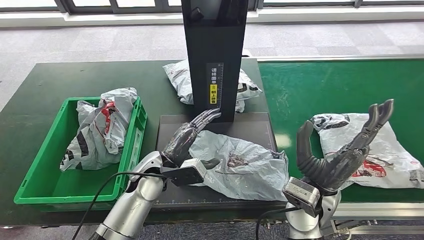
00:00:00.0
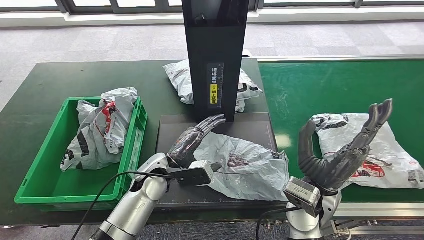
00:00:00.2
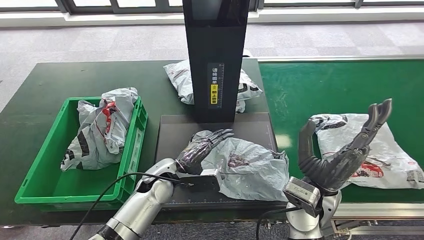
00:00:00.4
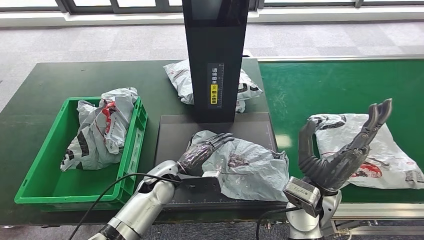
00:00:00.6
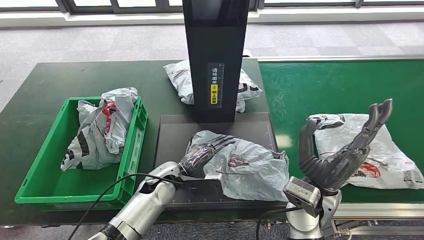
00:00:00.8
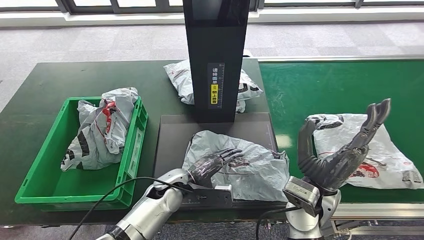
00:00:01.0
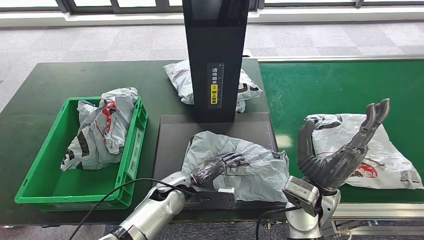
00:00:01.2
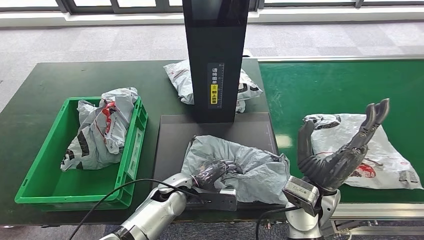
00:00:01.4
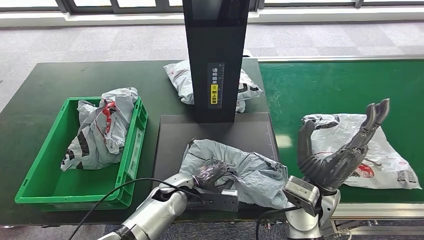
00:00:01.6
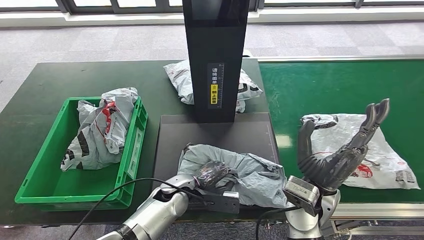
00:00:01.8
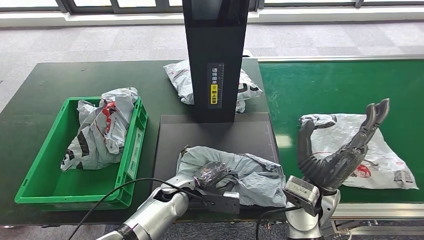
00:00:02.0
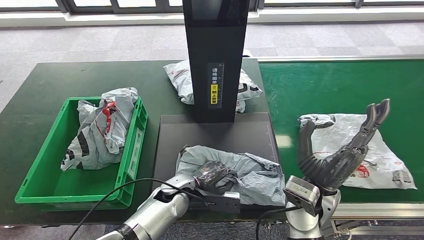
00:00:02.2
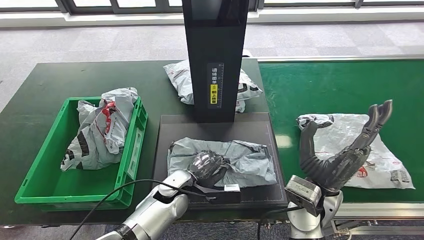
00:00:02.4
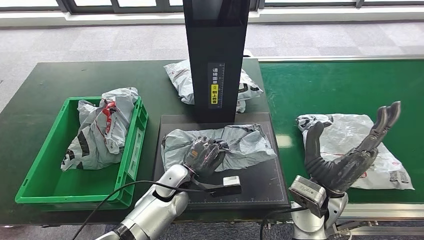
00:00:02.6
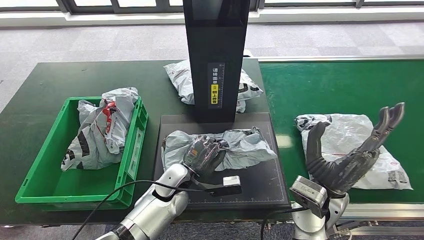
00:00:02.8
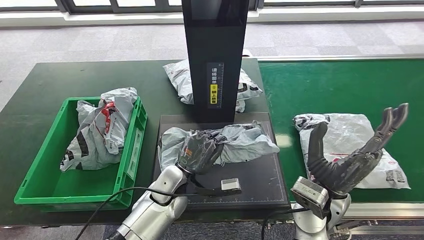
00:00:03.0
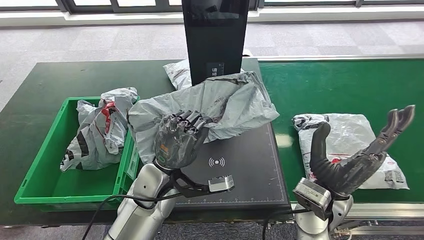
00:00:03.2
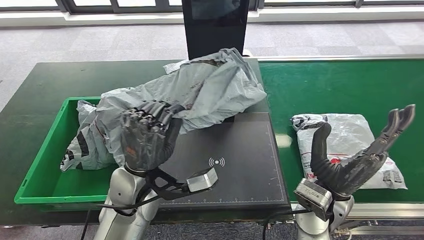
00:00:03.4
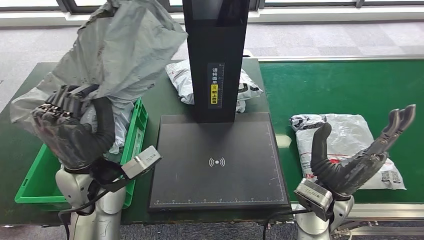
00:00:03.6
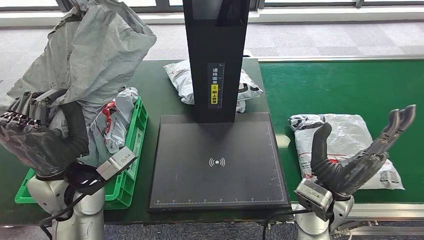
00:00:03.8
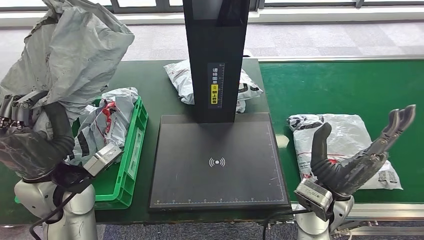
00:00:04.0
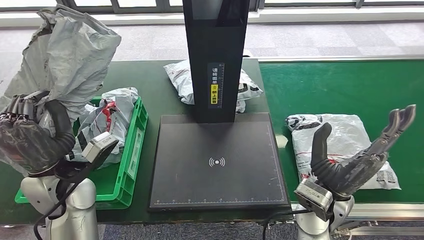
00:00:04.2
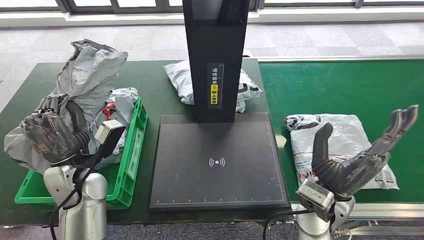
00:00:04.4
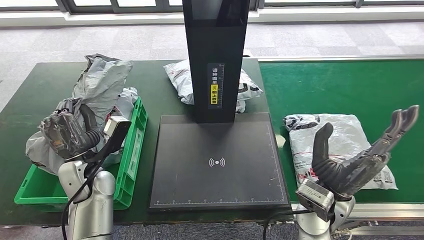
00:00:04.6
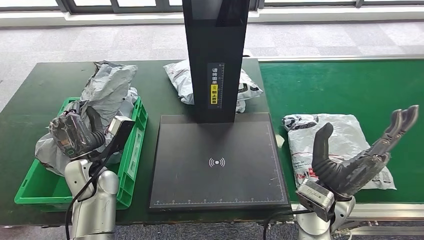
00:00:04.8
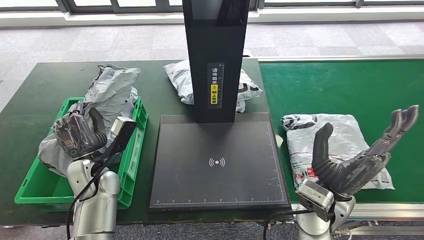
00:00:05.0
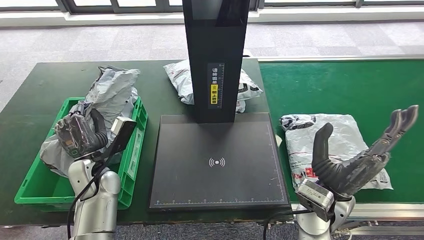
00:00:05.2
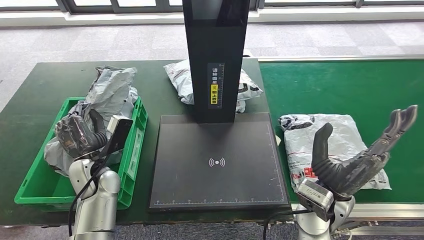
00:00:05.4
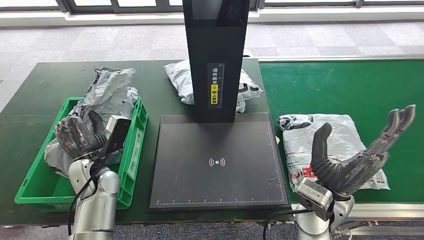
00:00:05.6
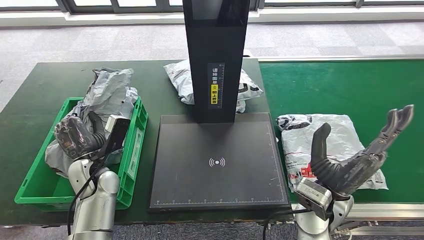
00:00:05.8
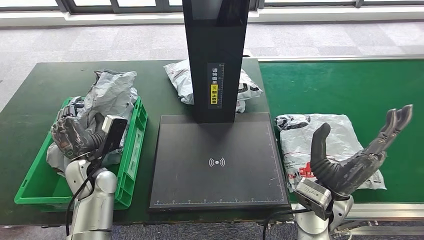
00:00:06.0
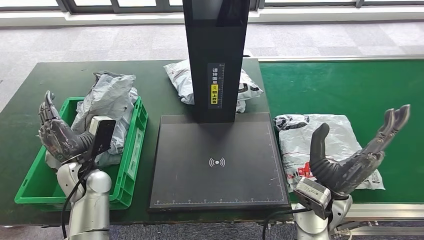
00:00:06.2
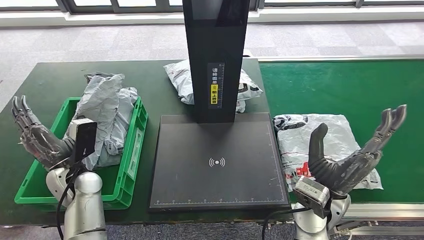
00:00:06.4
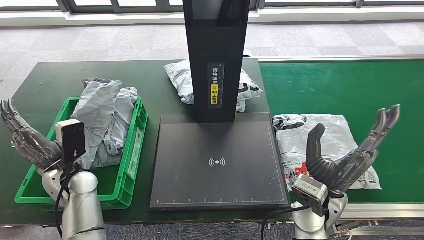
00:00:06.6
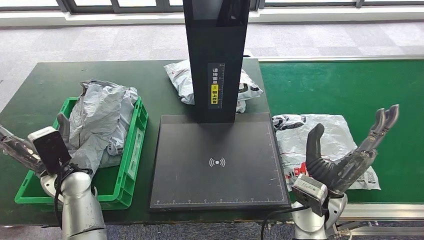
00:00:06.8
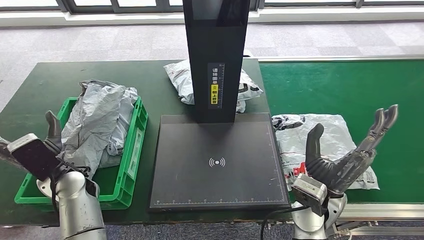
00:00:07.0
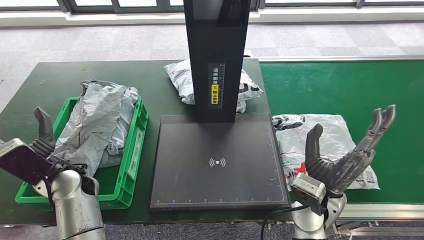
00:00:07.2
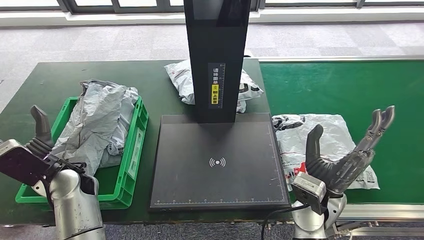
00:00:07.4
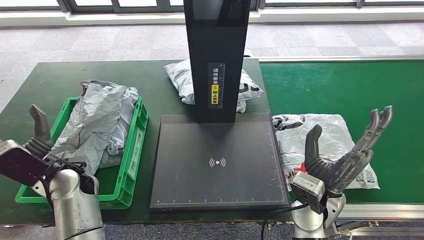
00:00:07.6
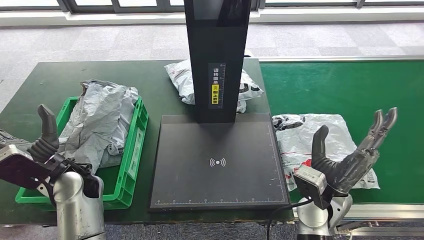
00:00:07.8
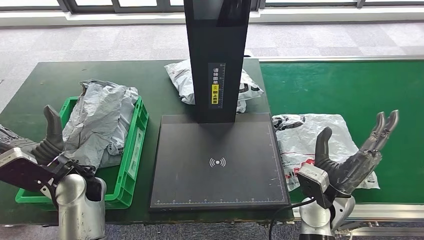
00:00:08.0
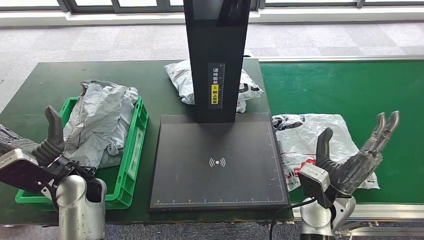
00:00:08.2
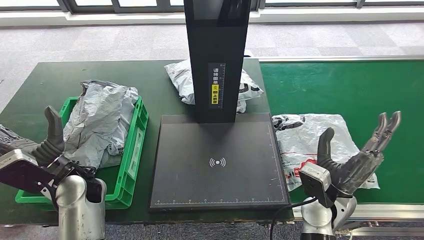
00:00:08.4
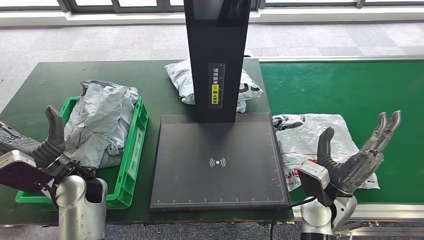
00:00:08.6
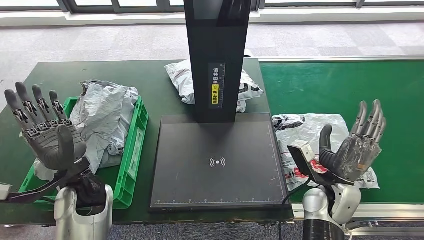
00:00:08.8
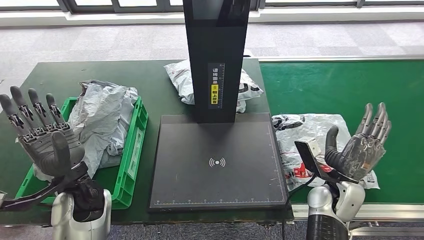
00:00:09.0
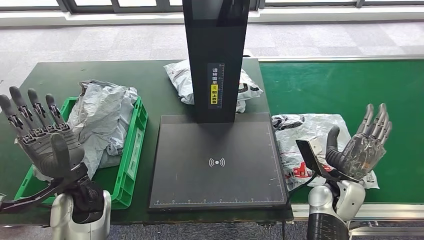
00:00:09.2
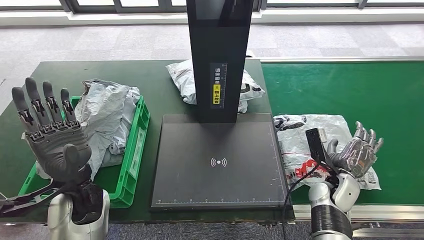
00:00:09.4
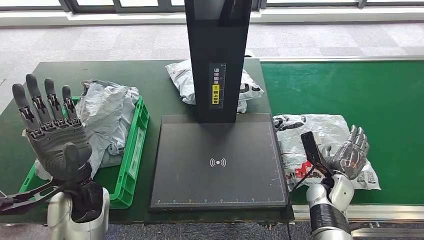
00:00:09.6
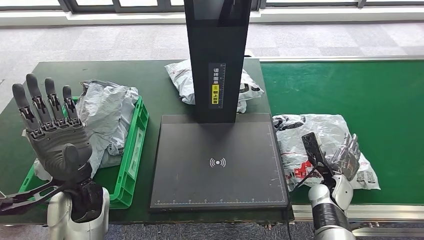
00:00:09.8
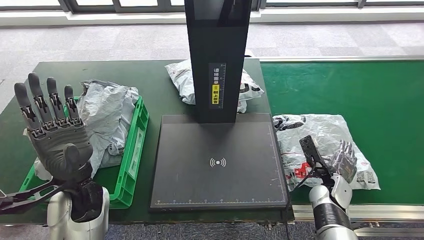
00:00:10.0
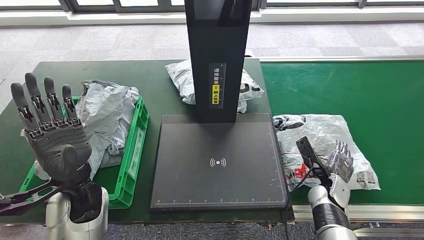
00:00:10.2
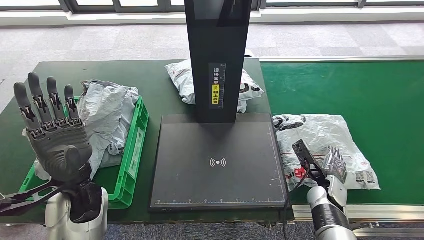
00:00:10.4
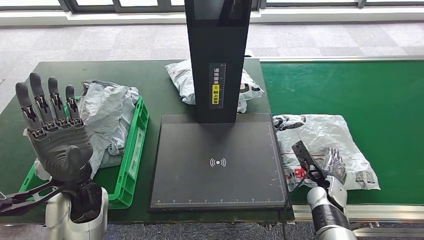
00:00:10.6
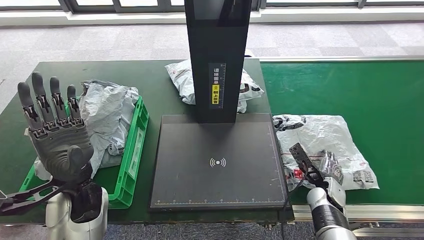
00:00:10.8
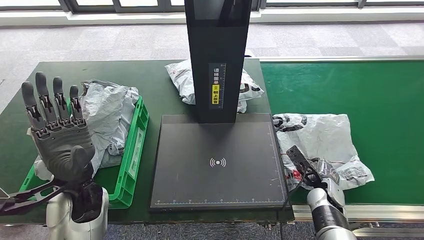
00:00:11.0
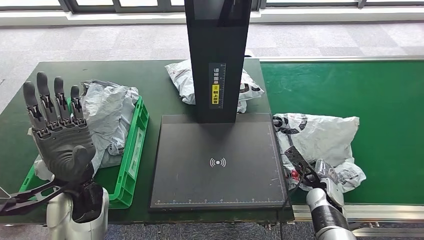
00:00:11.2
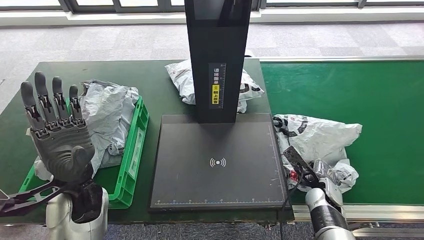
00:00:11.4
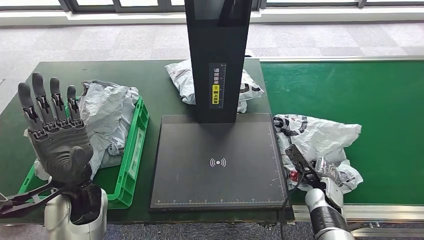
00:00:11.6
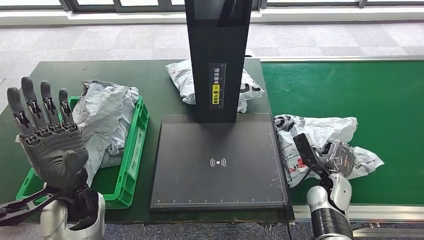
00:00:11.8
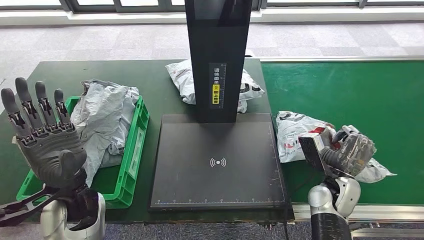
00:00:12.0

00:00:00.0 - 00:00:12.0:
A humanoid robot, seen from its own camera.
Step, 00:00:00.0 - 00:00:03.0: Pick up the parcel from the inbound machine.
Step, 00:00:03.2 - 00:00:07.8: Place the parcel into the delivery box.
00:00:00.0 - 00:00:01.6: The left hand travels downward by about 10 cm.
00:00:04.4 - 00:00:06.0: The left hand heads downward, covering roughly 5 cm.
00:00:06.0 - 00:00:07.6: The left hand changes place by some 5 cm.
00:00:07.6 - 00:00:09.0: The right hand goes roughly 5 cm to the right. Meanwhile the left hand ends up about 5 cm from where it was.
00:00:09.0 - 00:00:10.4: The right hand shifts about 10 cm downward.
00:00:10.4 - 00:00:12.0: The right hand goes roughly 5 cm upward.

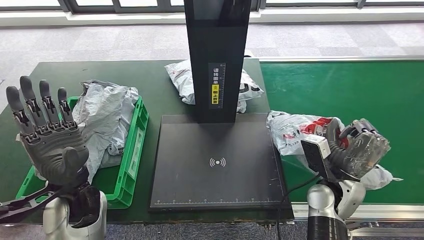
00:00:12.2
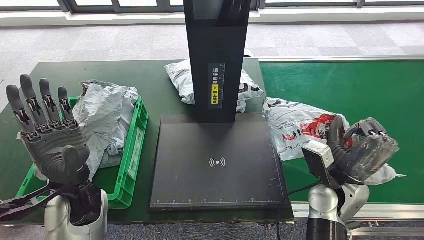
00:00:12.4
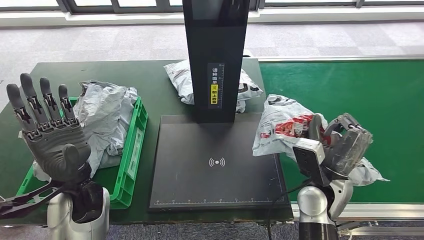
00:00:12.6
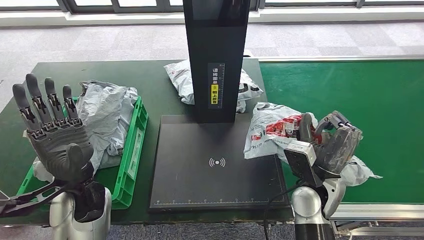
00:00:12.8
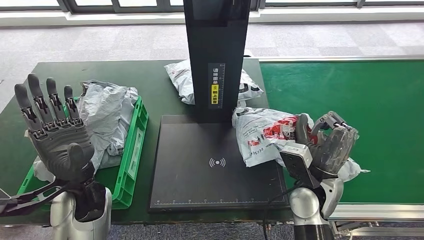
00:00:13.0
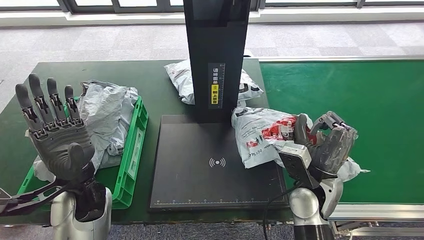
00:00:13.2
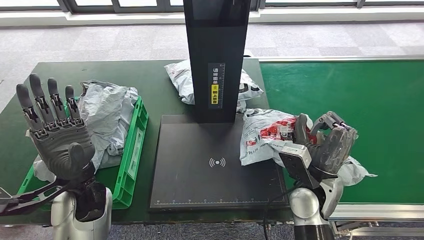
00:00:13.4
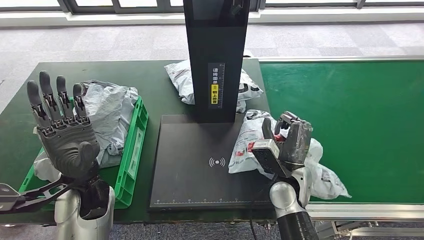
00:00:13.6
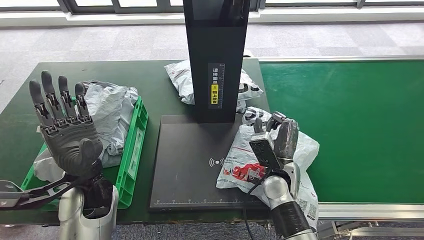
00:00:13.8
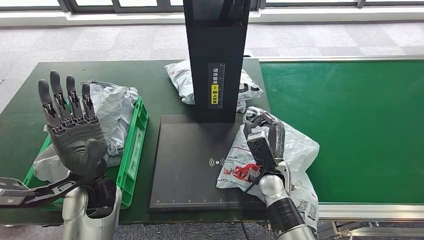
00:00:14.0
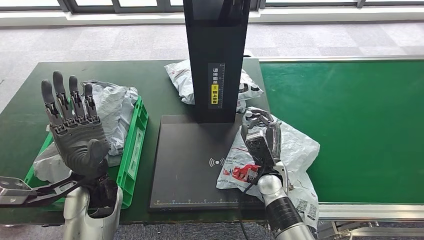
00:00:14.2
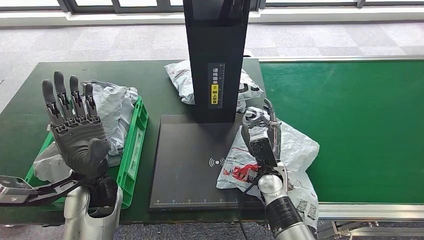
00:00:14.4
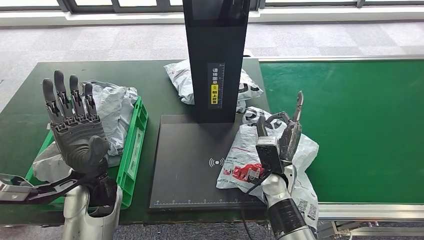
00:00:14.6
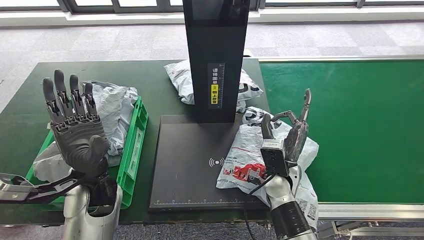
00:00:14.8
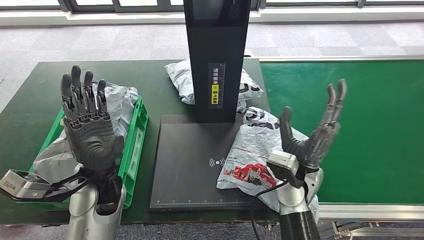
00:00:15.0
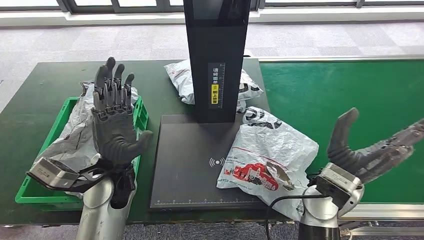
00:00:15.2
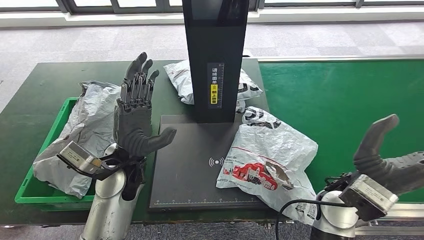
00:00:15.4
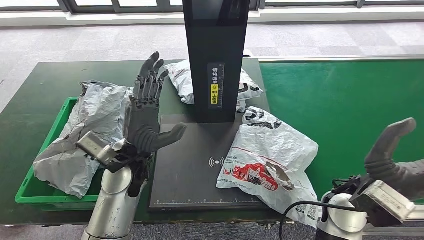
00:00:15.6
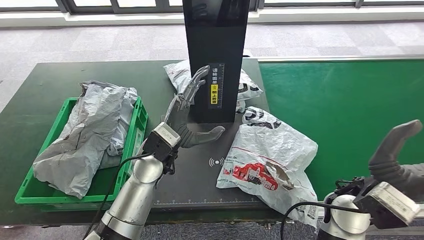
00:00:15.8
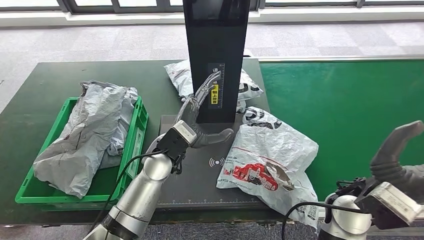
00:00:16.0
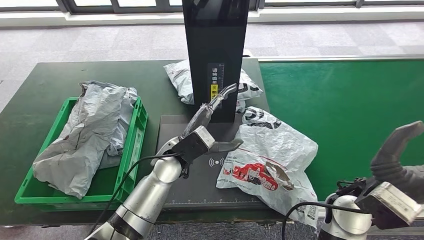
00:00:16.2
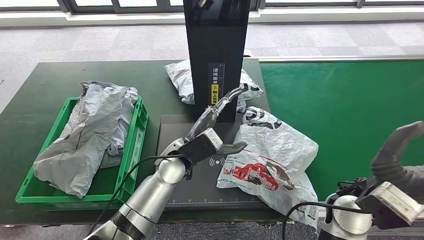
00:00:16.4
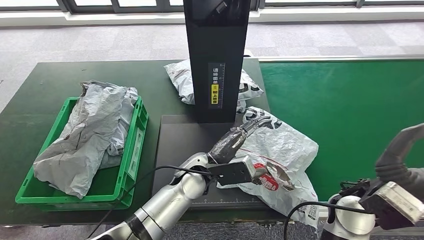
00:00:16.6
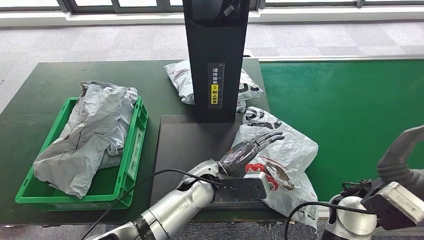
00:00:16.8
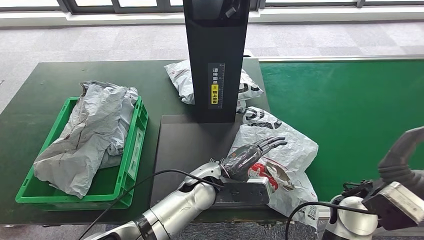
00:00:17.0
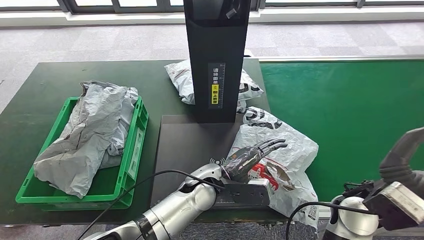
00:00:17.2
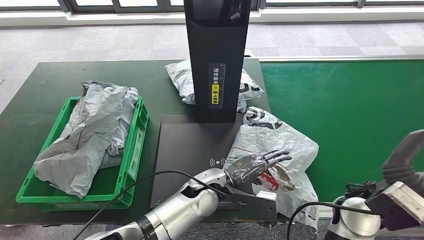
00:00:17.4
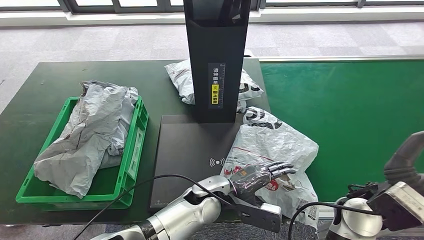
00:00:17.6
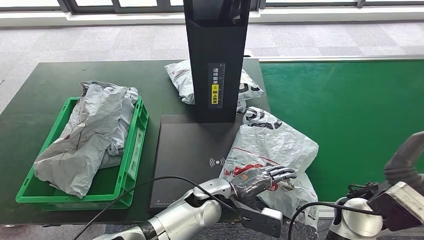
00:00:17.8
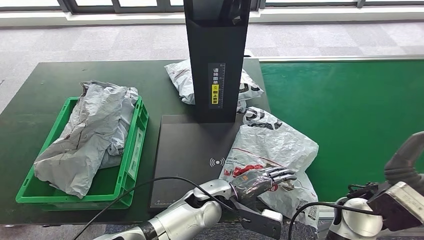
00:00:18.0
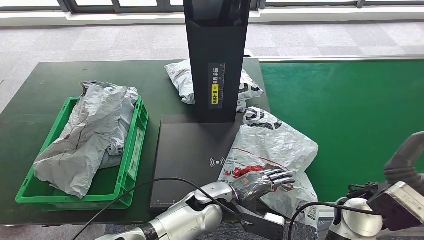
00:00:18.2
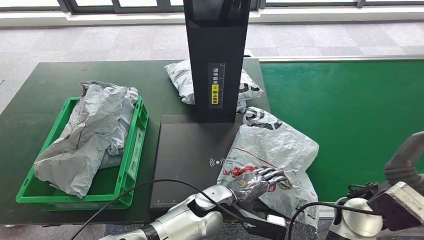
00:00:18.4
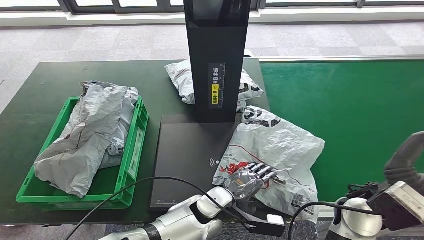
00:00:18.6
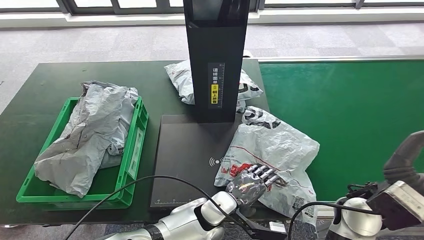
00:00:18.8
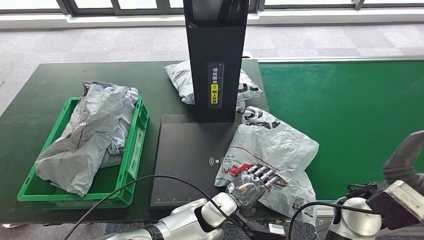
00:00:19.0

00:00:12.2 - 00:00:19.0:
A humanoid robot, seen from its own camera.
Step, 00:00:12.6 - 00:00:15.6: Place the parcel onto the inbound machine.
00:00:16.2 - 00:00:17.6: The left hand travels to the right, downward and backward by about 10 cm.
